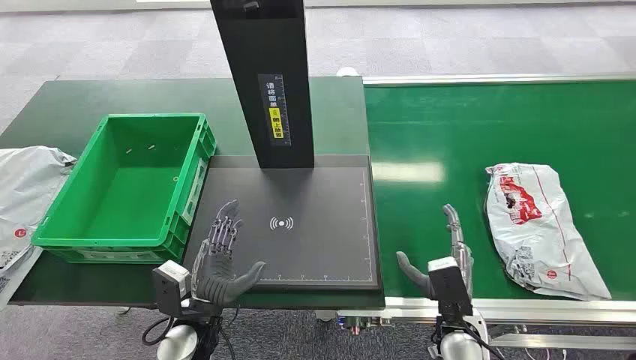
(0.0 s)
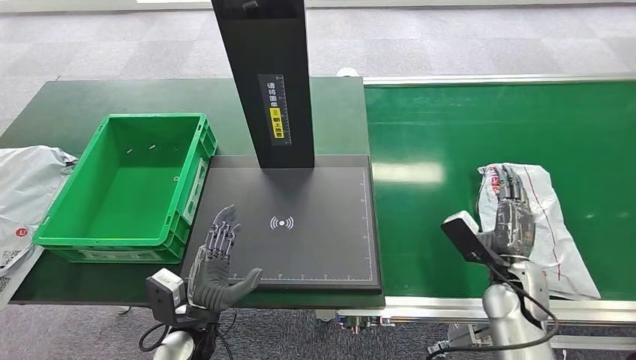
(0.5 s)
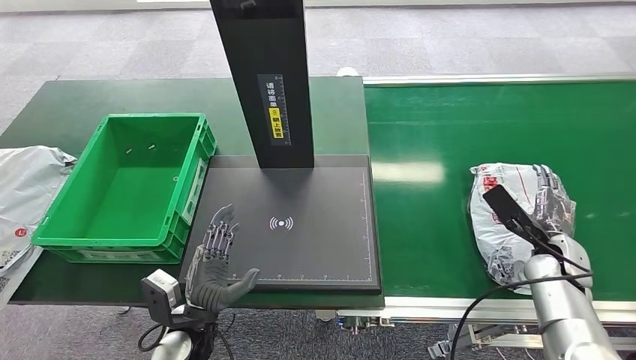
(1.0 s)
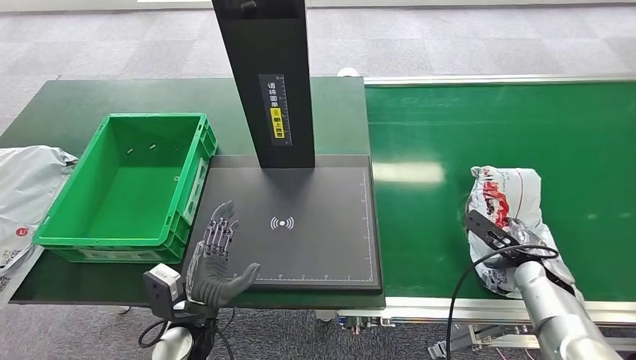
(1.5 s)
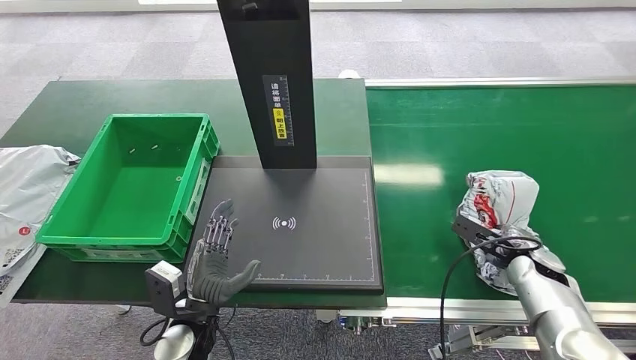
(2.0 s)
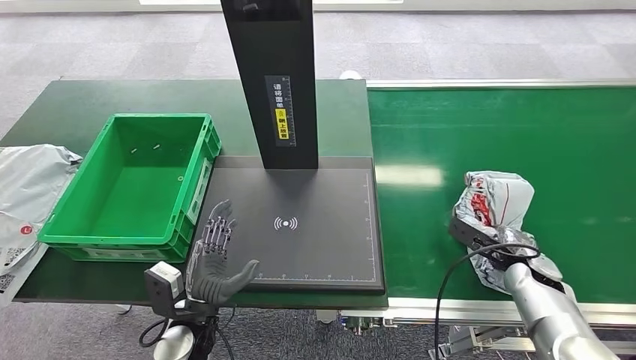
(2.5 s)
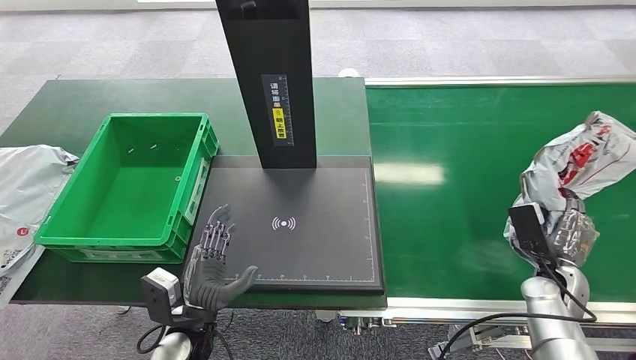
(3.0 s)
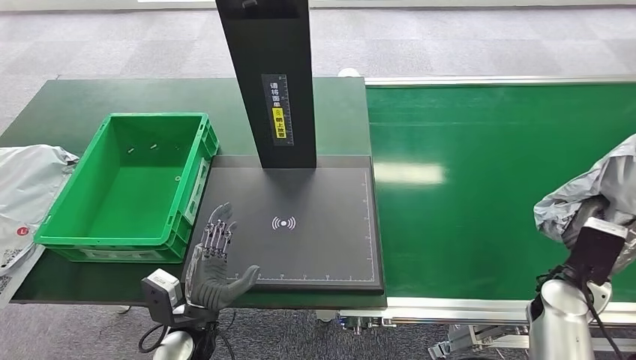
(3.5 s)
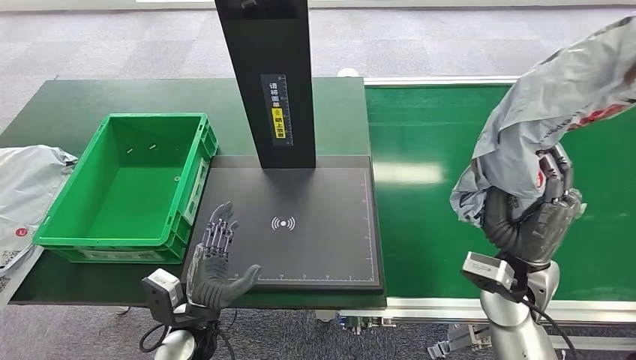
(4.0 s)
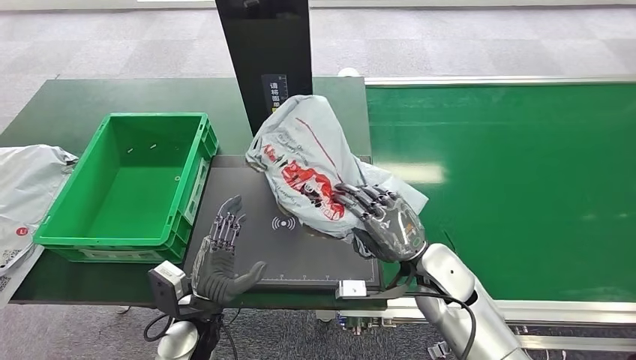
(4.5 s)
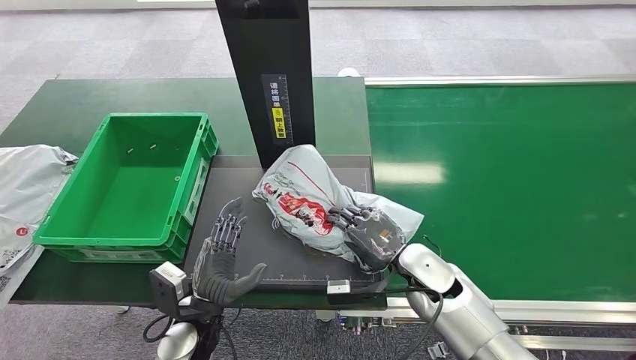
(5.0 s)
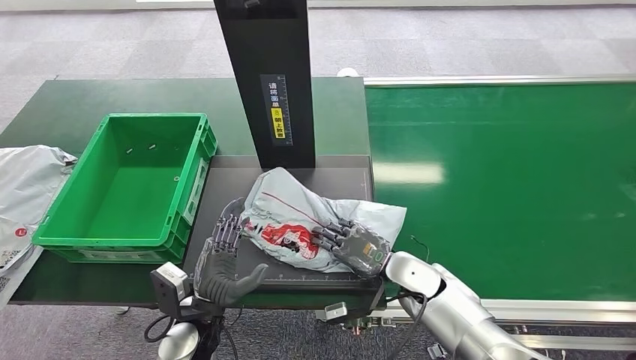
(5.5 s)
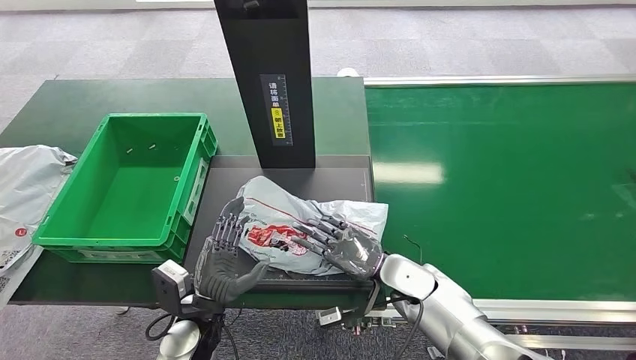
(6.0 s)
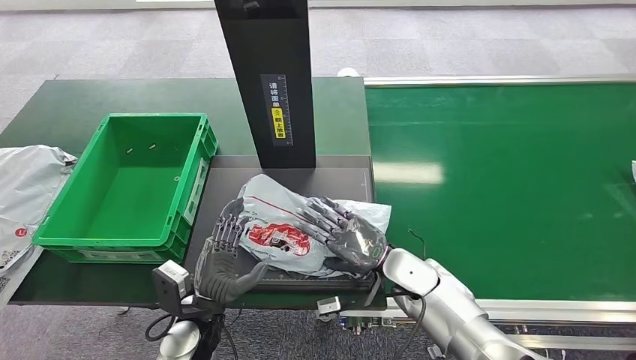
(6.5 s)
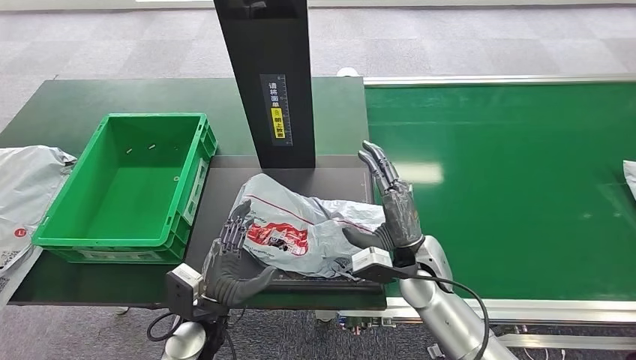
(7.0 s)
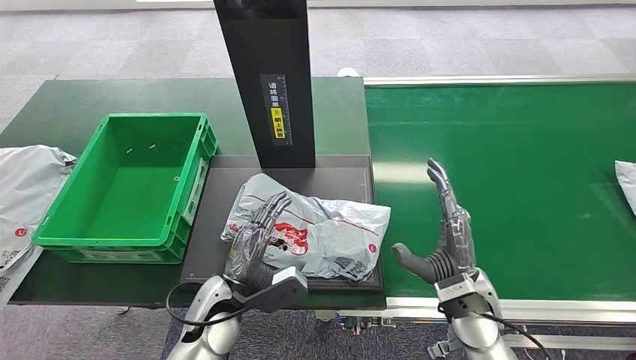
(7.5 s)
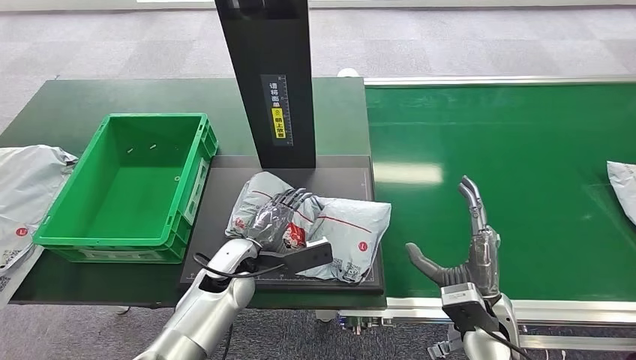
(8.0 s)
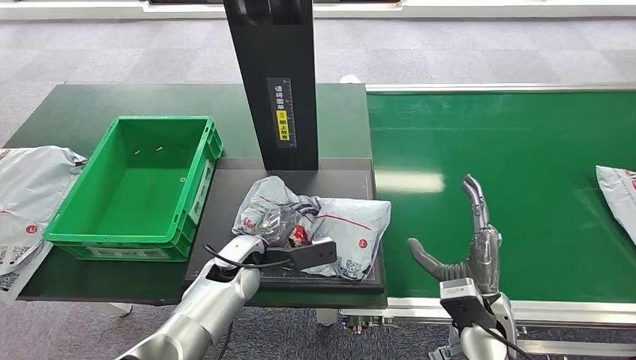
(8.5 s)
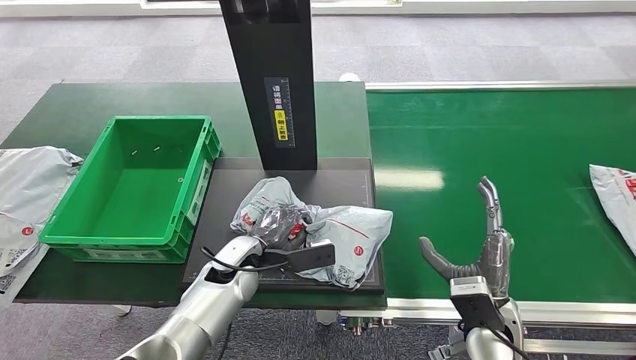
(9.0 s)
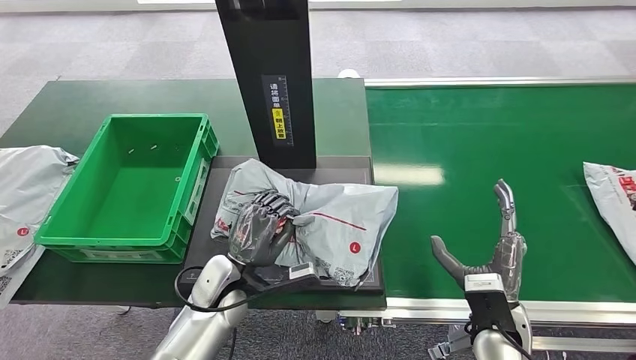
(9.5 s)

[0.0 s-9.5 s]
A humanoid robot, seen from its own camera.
Step, 0.0 to 3.5 s: Pick up the package from the conveyor belt.
Step, 4.0 to 6.5 s: Place the package onto the inbound machine.
5.5 to 7.5 s: The right hand is displaced backward by roughly 5 cm.

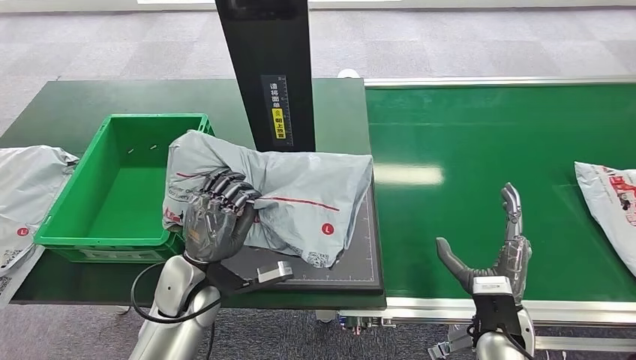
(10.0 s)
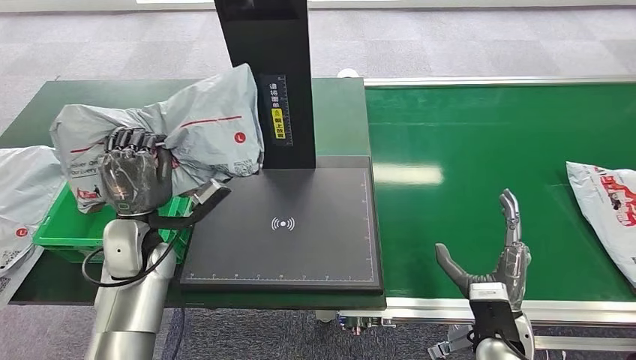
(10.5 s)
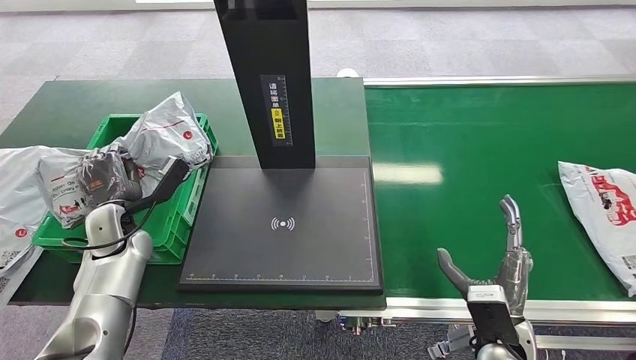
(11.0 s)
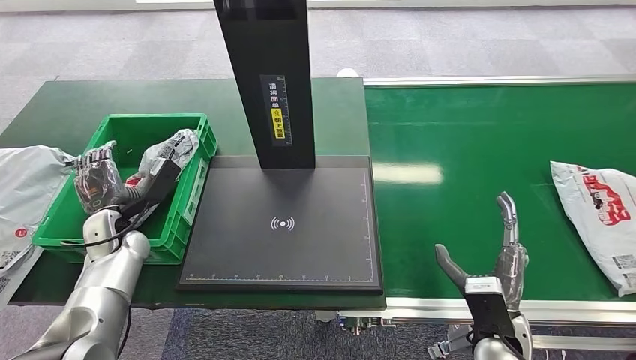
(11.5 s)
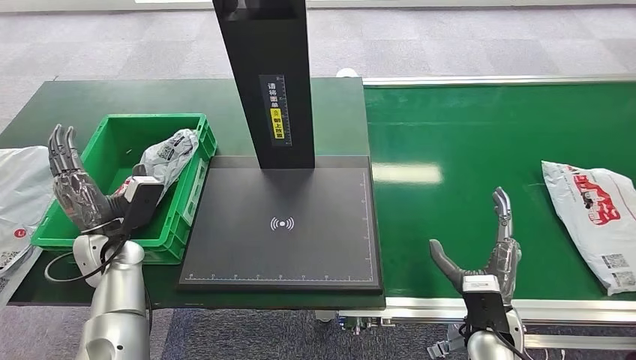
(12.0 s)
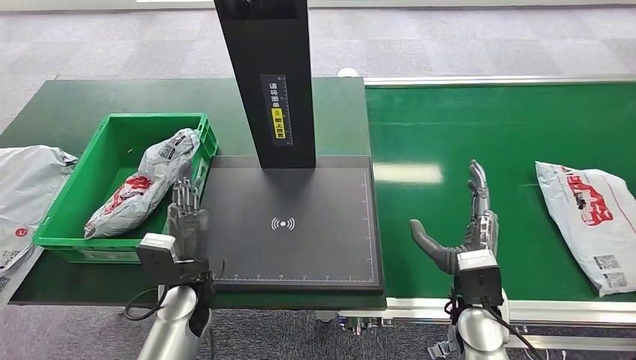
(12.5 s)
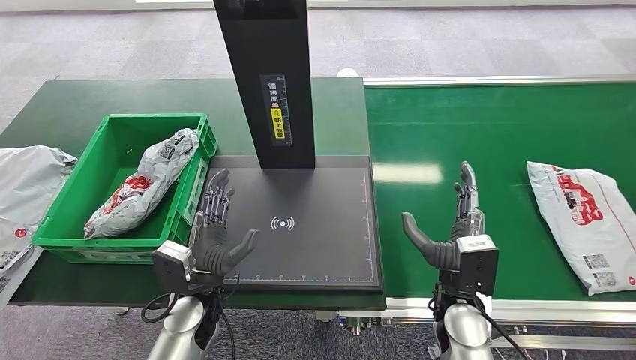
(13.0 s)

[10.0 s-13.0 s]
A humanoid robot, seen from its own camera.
Step, 10.5 to 13.0 s: Place the package into the parcel locker.
11.5 to 13.0 s: The left hand travels to the right and backward by about 25 cm. Meanwhile the right hand shifts roughly 5 cm to the left.
